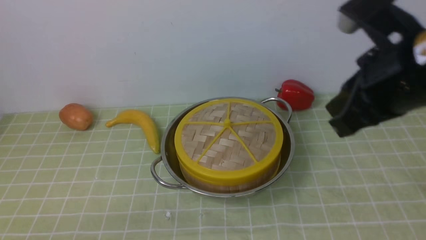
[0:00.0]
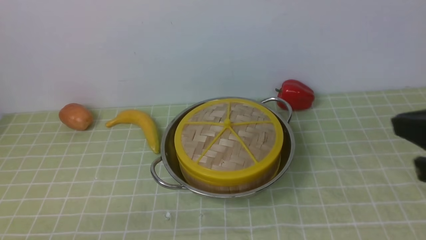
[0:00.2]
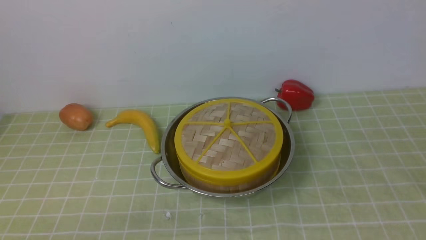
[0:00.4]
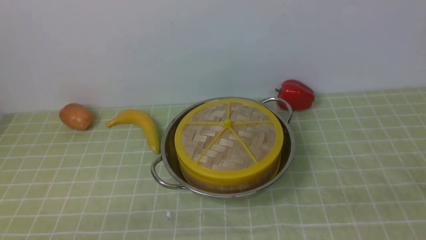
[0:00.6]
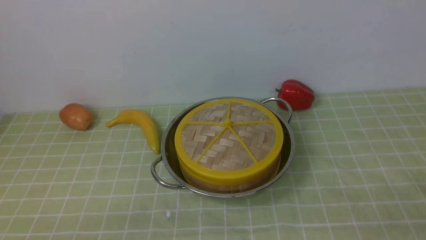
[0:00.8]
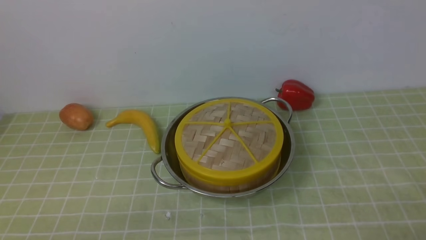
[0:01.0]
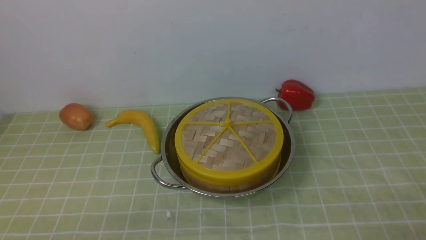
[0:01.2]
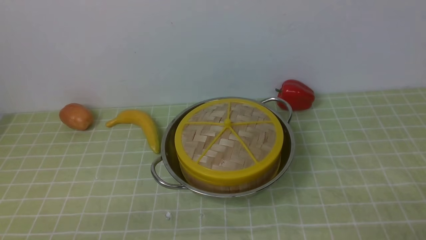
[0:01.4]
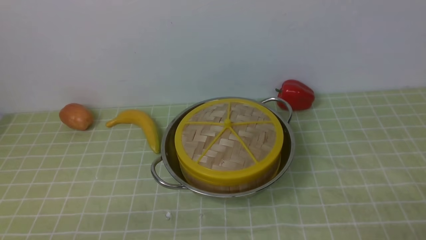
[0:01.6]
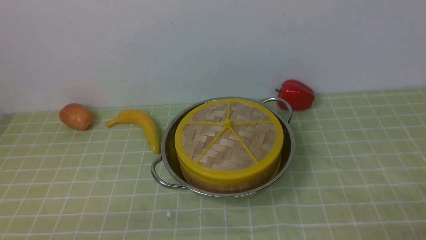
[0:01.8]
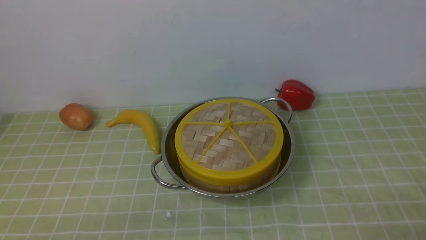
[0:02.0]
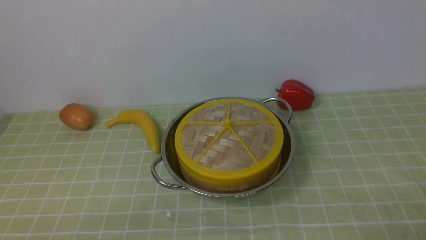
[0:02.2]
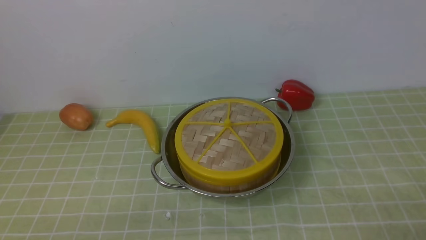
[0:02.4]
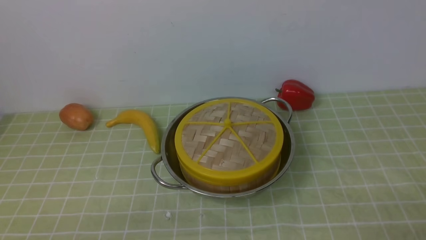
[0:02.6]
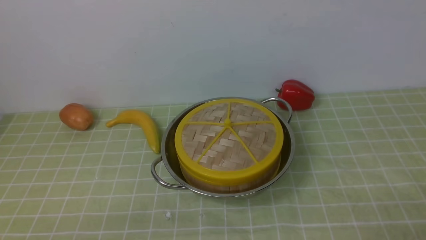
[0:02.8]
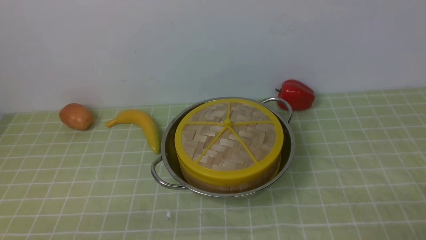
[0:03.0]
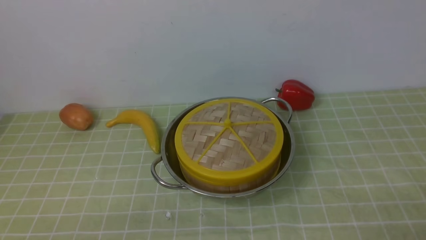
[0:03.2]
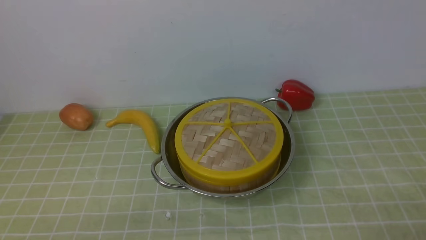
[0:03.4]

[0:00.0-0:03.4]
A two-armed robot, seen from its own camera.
Task of the whole recording: place the steamer in the pot on the green tablecloth, and put the lid on the steamer.
0:00.0 to 0:01.6: The right gripper is displaced downward, backward and to the right by approximately 30 cm, and opens.
0:01.6 to 0:03.4: Neither gripper changes place.
